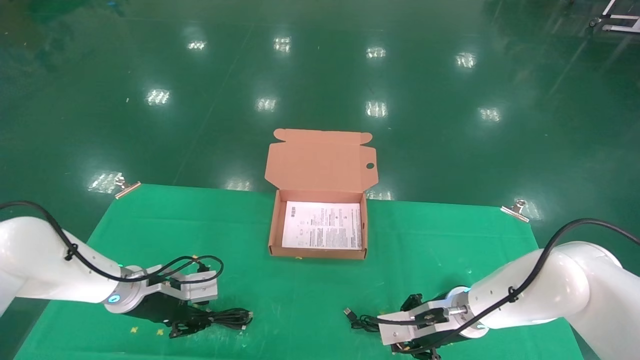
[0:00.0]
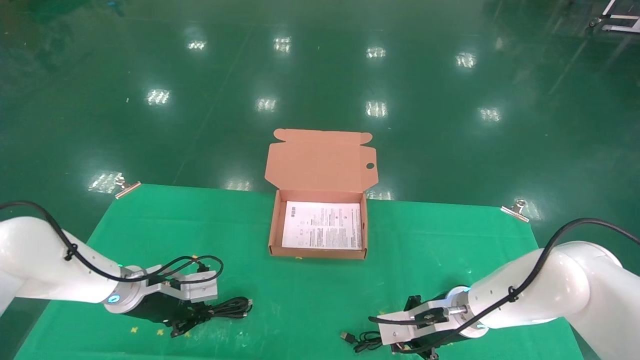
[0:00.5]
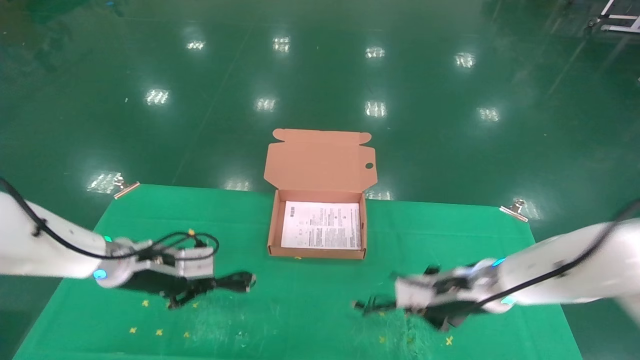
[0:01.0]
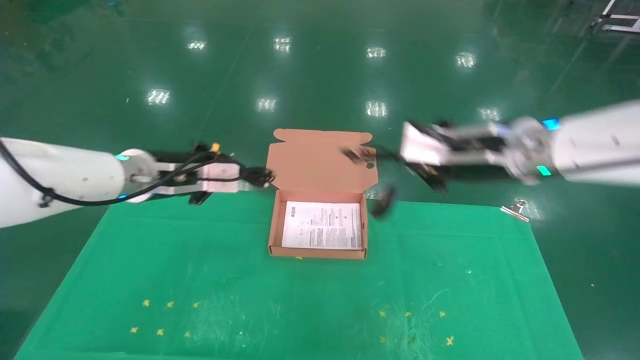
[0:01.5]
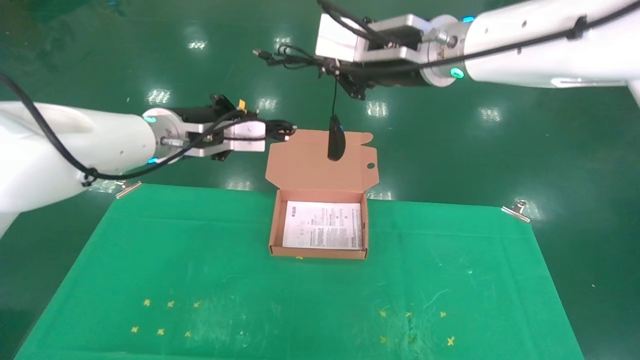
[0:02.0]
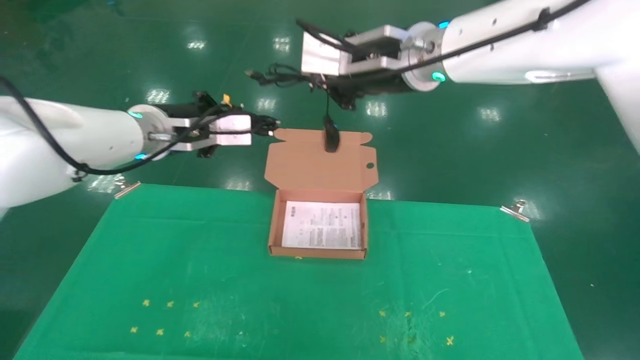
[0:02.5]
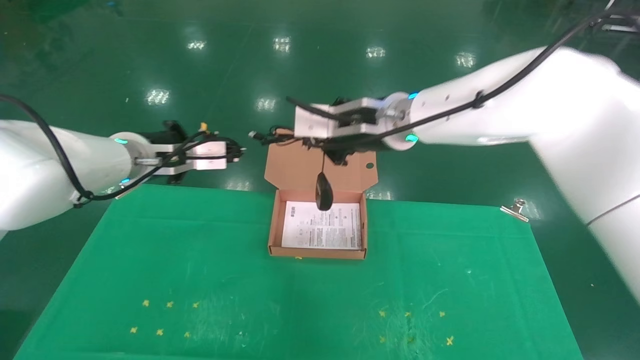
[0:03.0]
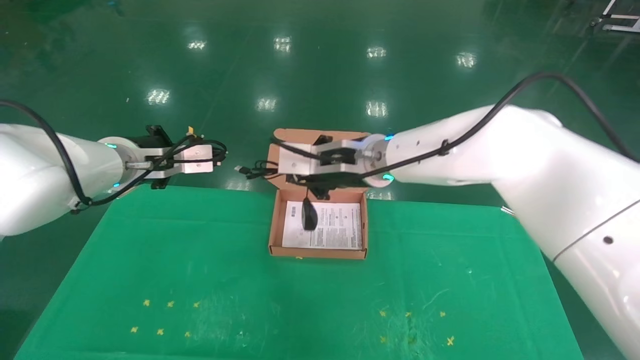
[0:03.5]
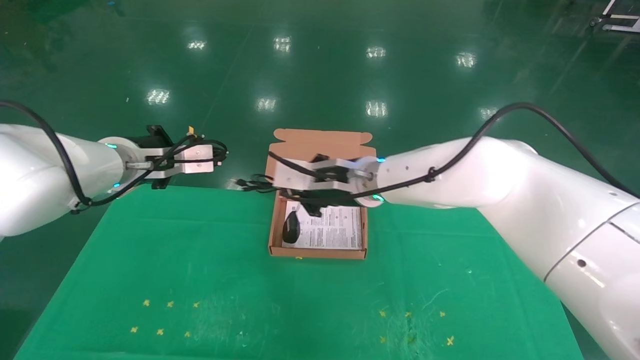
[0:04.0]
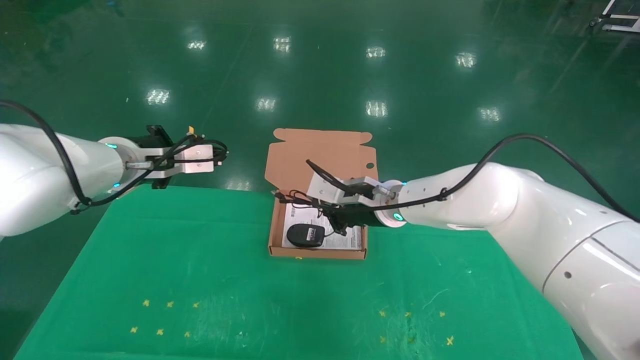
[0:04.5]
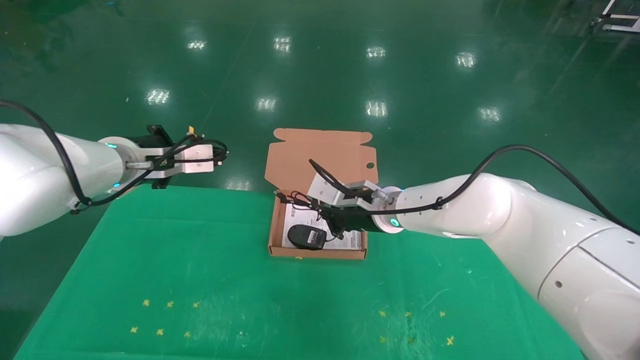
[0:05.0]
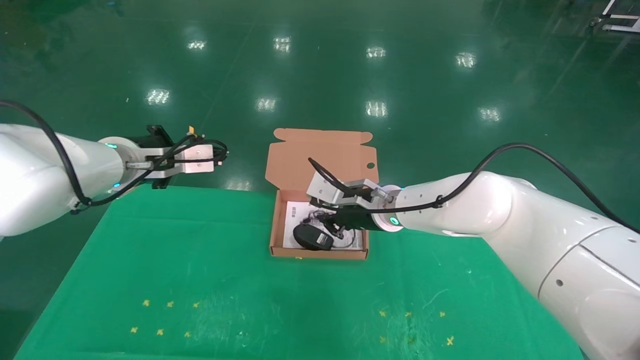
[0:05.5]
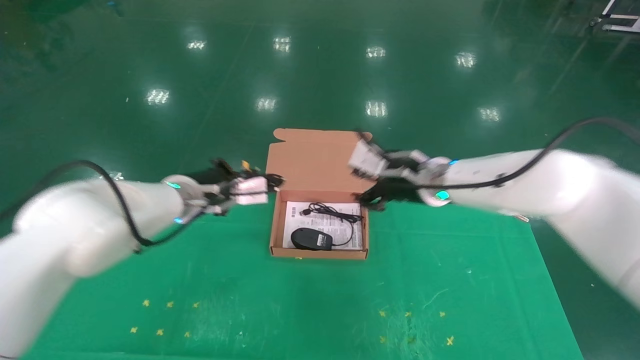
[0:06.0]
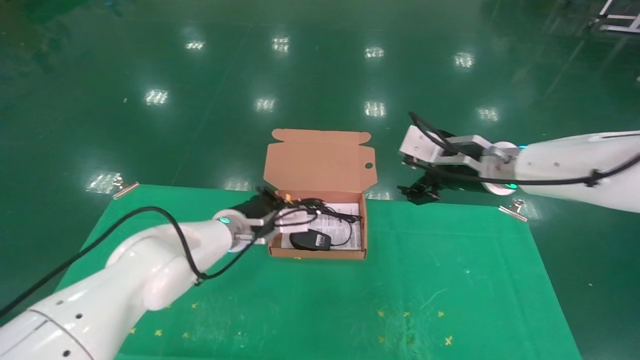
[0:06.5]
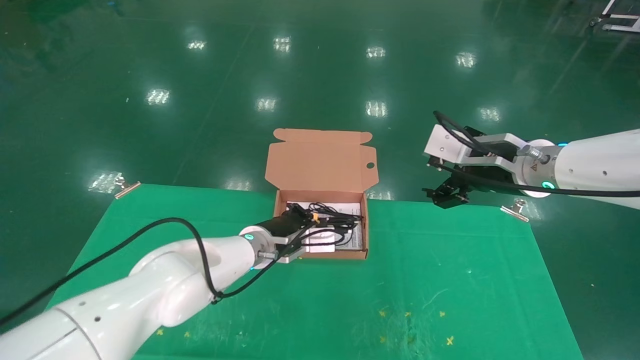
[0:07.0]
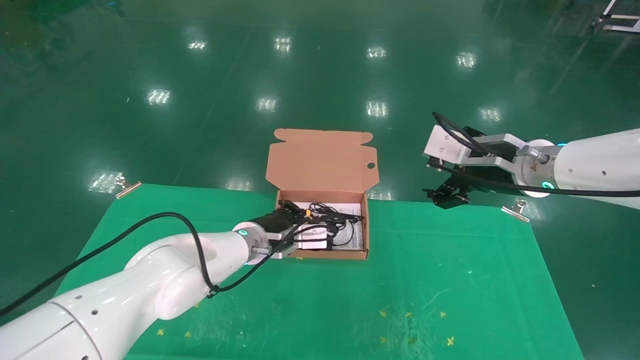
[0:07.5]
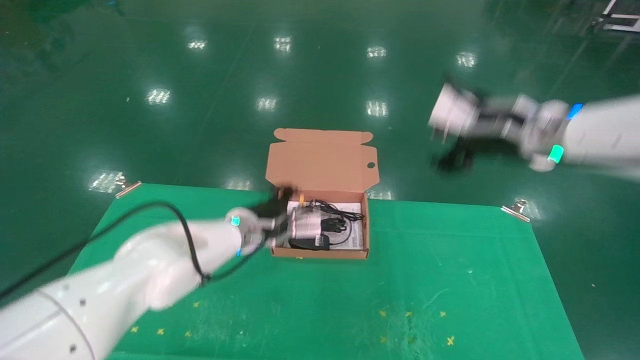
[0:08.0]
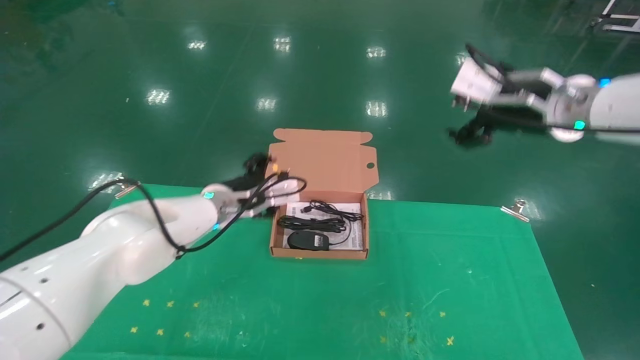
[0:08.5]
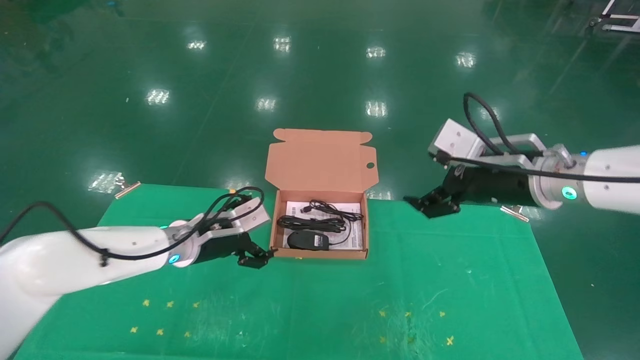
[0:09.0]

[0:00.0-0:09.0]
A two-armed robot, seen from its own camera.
Task of the whole recording: grasp data cable left put into box grasp mouse right put into box.
Step, 0:02.0 to 0:08.0: Place the mouse and power cord into the box.
0:00.0 to 0:02.0: Both grippers travel together upward, about 30 cm. The right gripper closes up, while the left gripper closes.
0:02.0 to 0:04.5: The left gripper is displaced to the left by some 5 cm. Meanwhile the right gripper is displaced downward by some 20 cm.
0:04.5 to 0:07.0: The left gripper goes roughly 25 cm to the right and downward; the right gripper goes about 20 cm to the right, upward and backward, and opens.
0:07.0 to 0:09.0: The left gripper moves to the left, approximately 10 cm, and opens its fingers.
